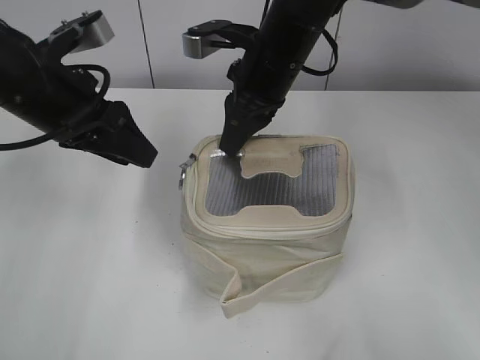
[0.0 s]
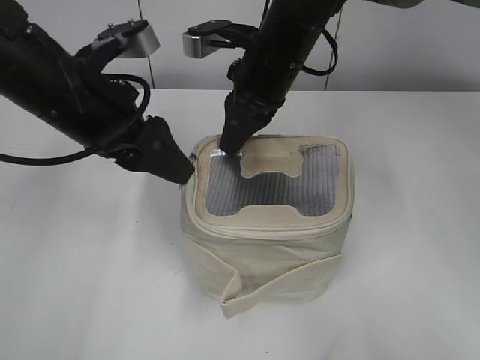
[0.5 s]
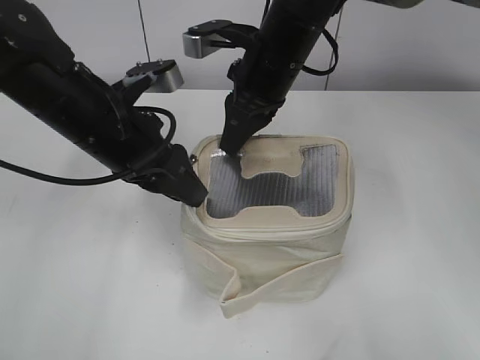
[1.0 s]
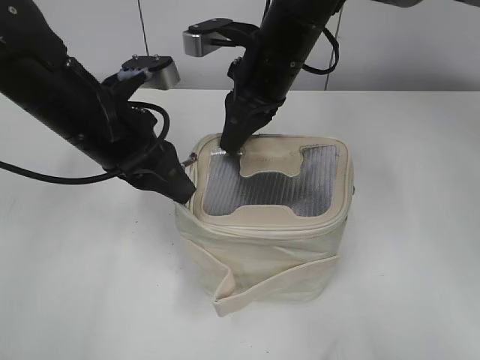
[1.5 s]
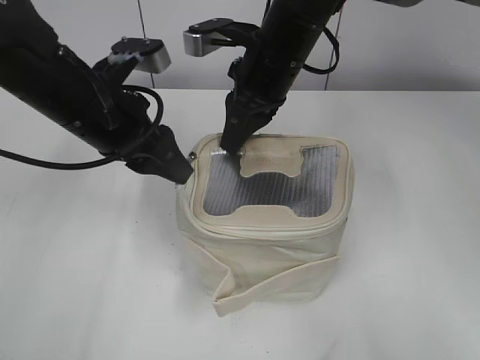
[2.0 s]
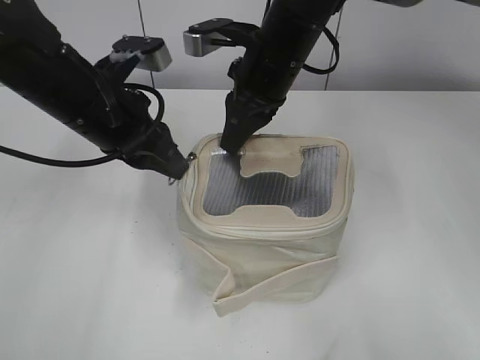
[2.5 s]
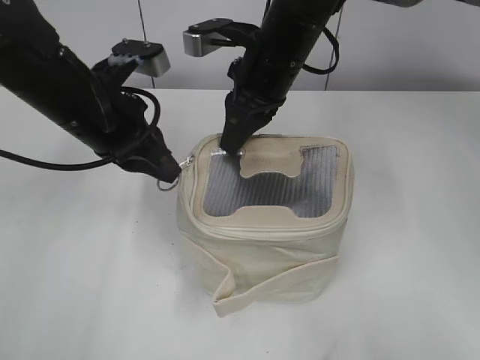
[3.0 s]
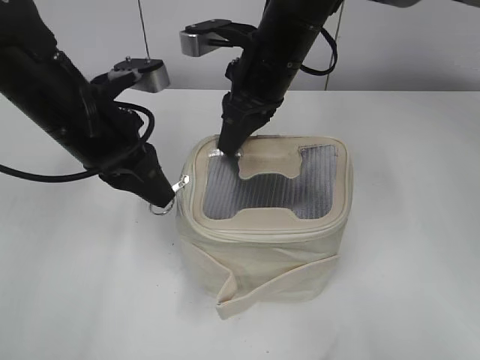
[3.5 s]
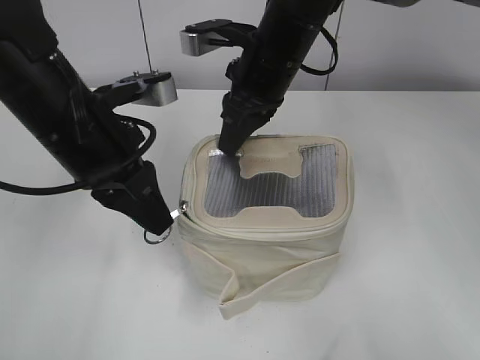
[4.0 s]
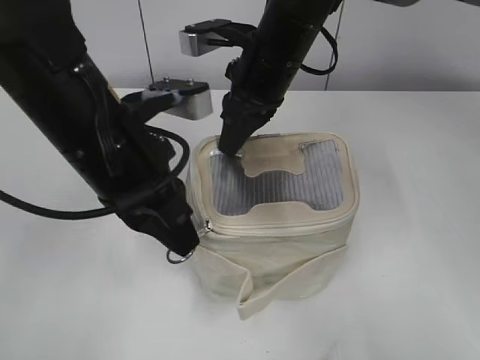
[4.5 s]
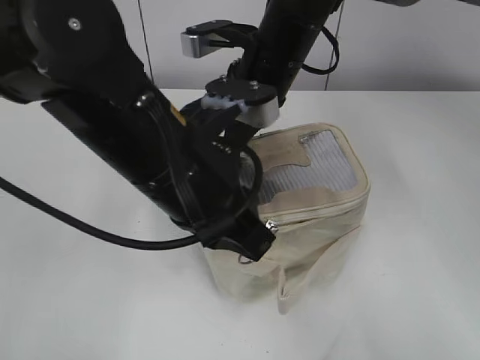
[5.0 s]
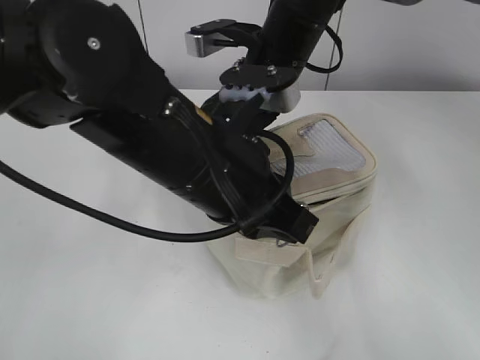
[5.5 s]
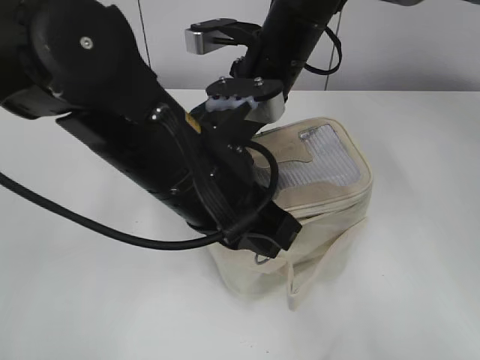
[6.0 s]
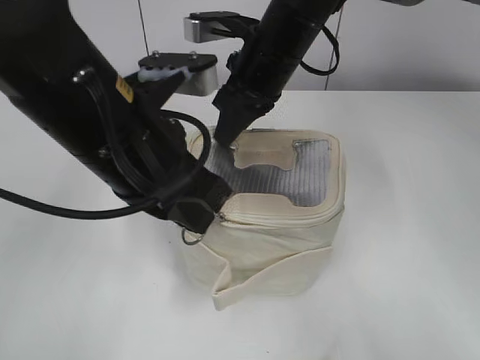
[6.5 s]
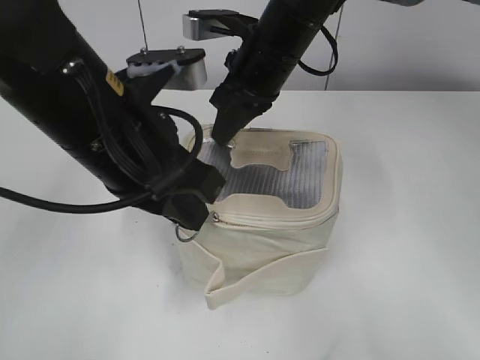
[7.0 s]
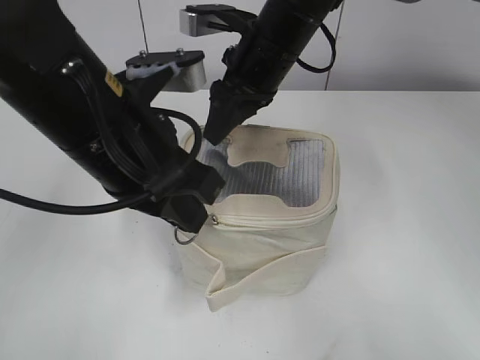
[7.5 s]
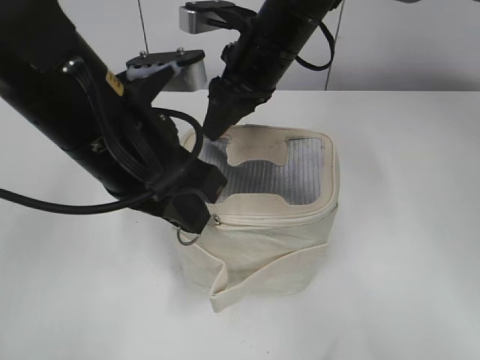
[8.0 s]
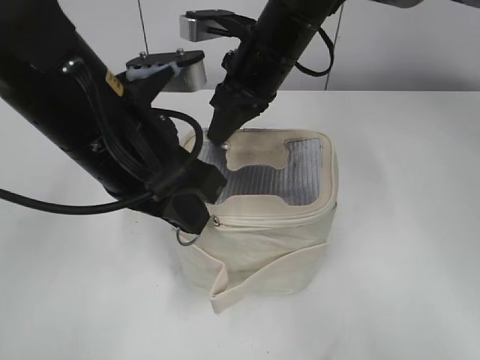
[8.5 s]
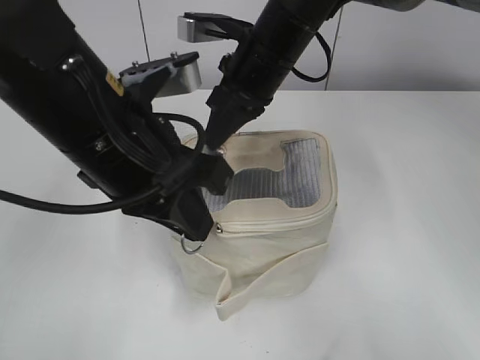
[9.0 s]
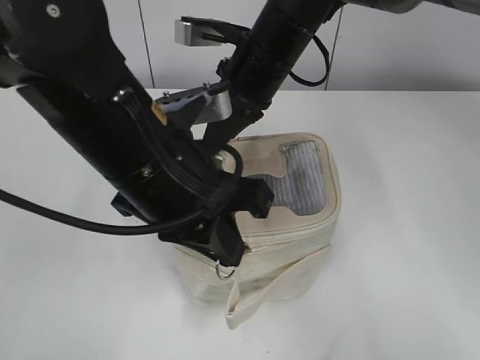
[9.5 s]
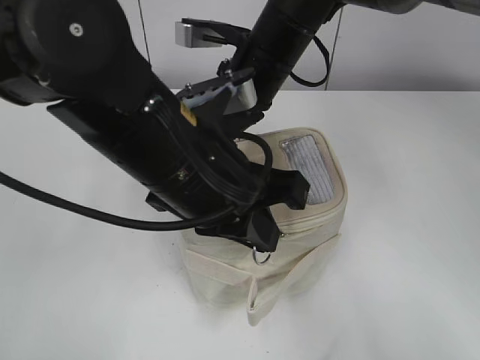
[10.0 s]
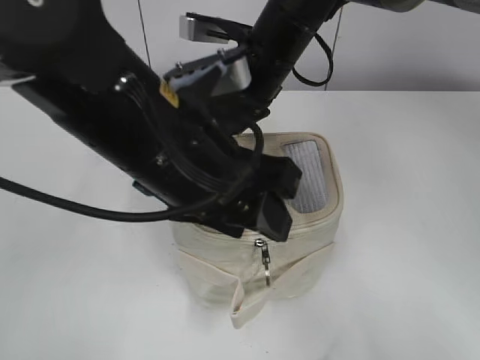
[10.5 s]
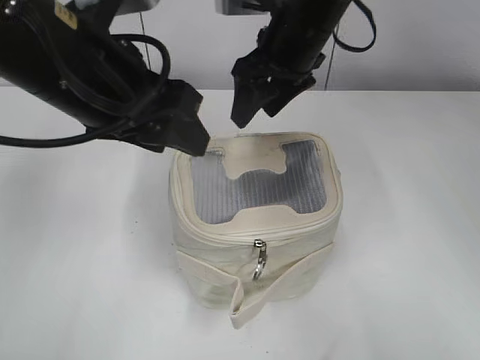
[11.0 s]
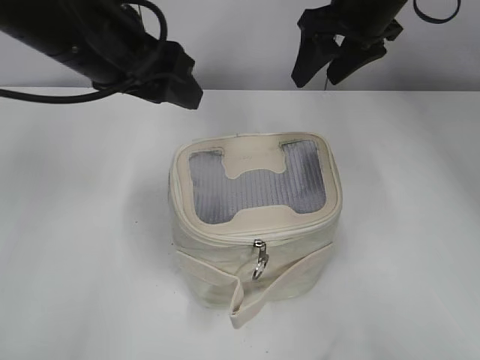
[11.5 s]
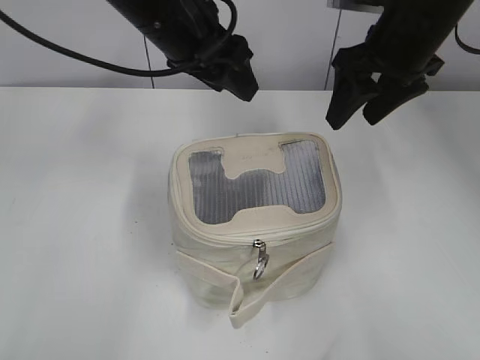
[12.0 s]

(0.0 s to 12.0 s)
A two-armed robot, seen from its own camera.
Step, 0.0 s - 10.0 s: Zip up the bag with your left hand.
2.0 s - 4.0 s: The left gripper closes up.
4.0 s - 6.0 s: The left gripper shifts some 10 cm to the right and backward.
6.0 s - 8.0 s: The left gripper moves to the left, roughly 5 cm, while the right gripper opens up.
8.0 s - 10.0 s: The left gripper ends up about 5 cm from where it was, while the right gripper closes its fingers.
10.0 s - 12.0 s: The right gripper heads to the right, covering approximately 15 cm, and opens up. Meanwhile the left gripper goes roughly 15 cm forward, and opens its fingers.

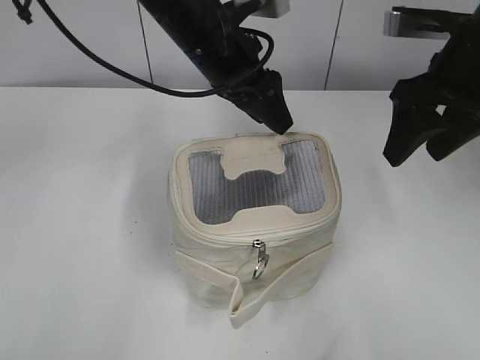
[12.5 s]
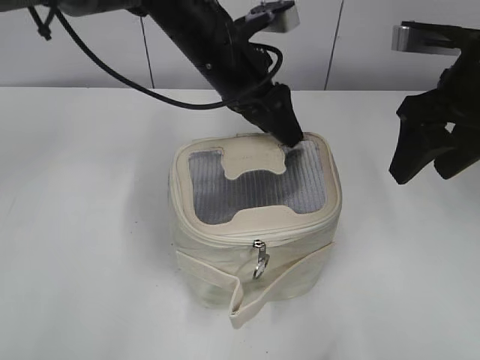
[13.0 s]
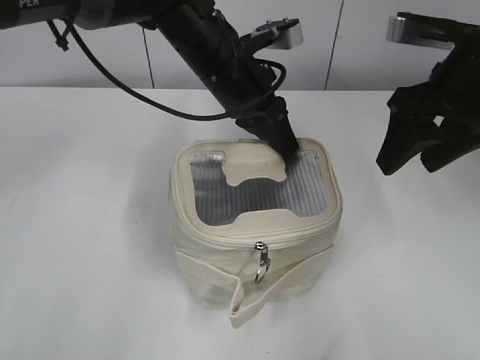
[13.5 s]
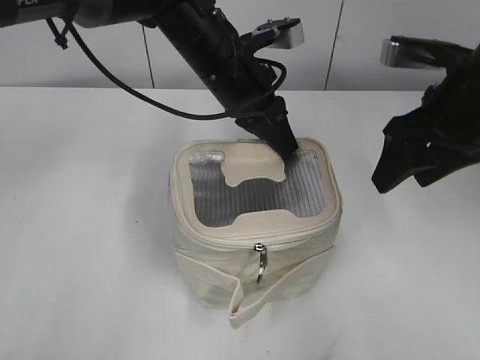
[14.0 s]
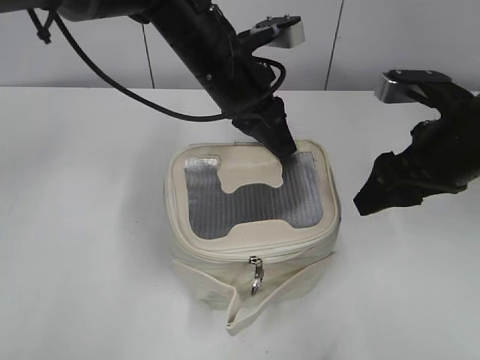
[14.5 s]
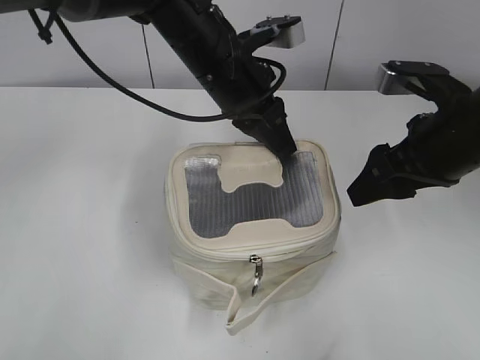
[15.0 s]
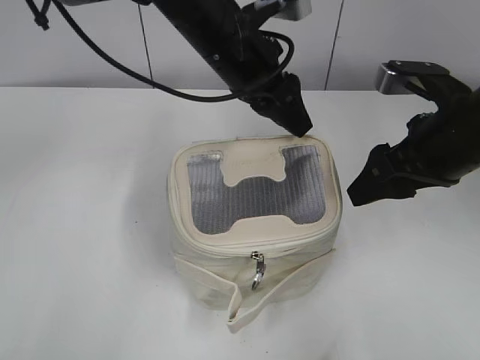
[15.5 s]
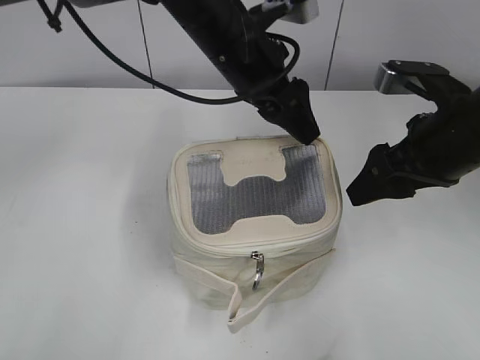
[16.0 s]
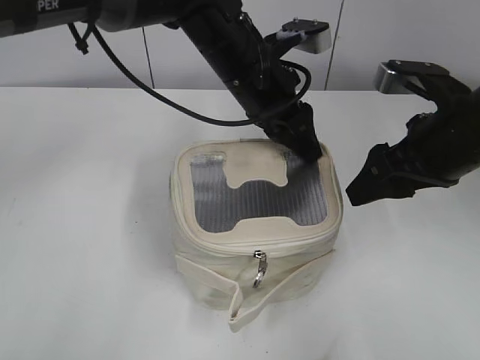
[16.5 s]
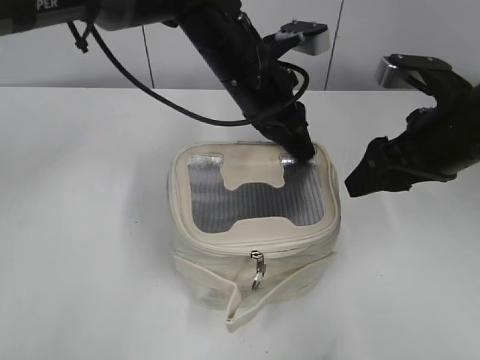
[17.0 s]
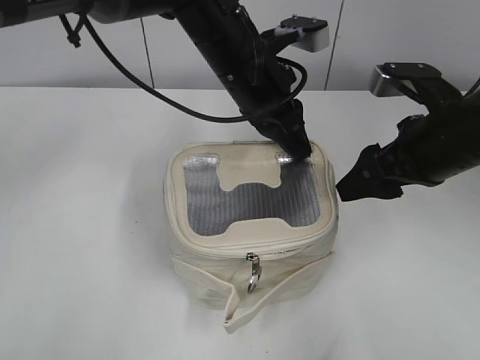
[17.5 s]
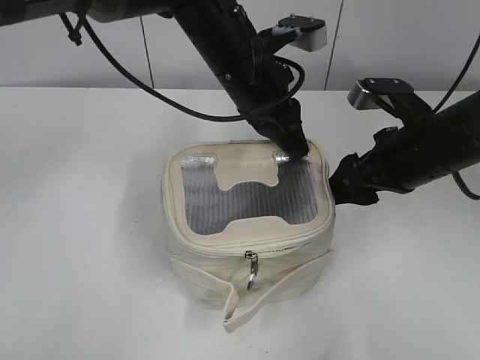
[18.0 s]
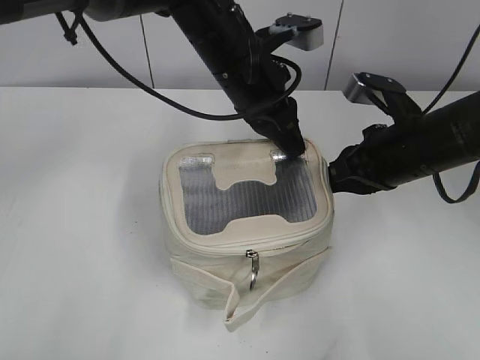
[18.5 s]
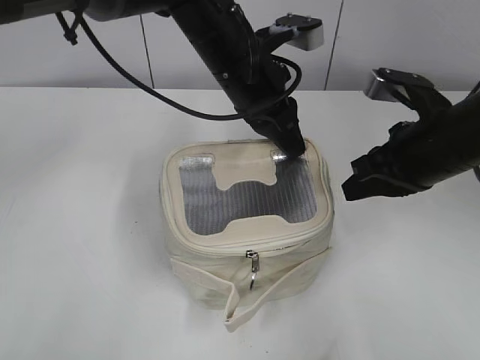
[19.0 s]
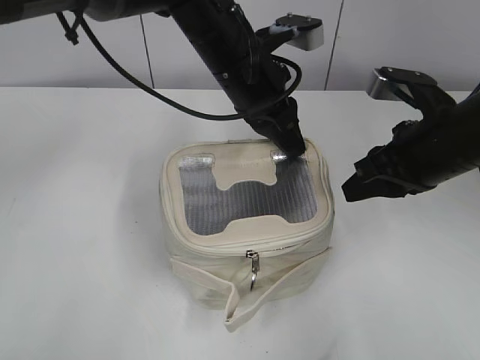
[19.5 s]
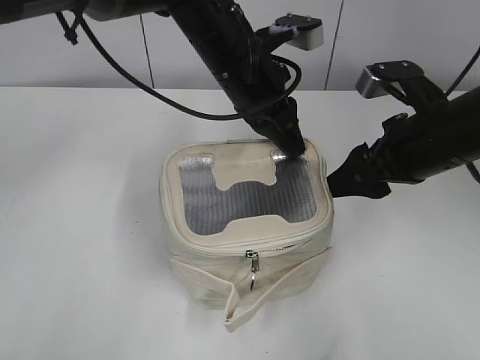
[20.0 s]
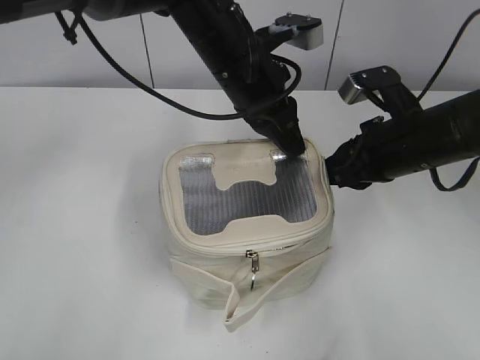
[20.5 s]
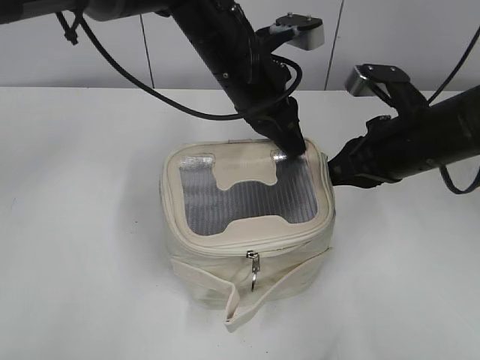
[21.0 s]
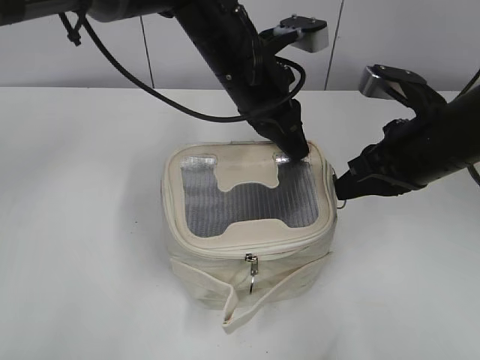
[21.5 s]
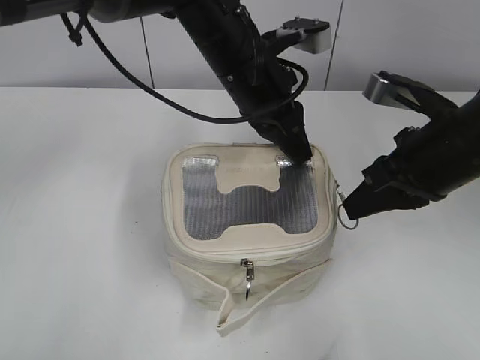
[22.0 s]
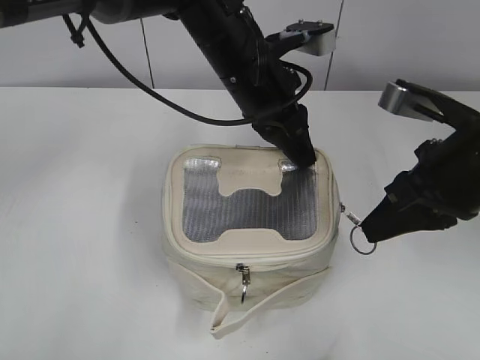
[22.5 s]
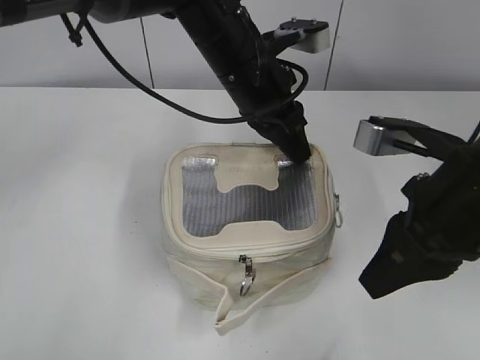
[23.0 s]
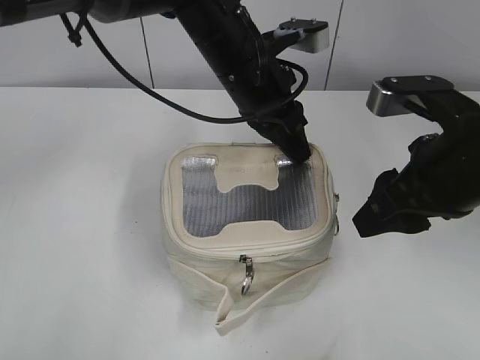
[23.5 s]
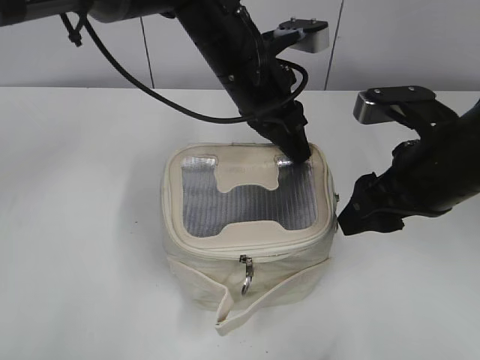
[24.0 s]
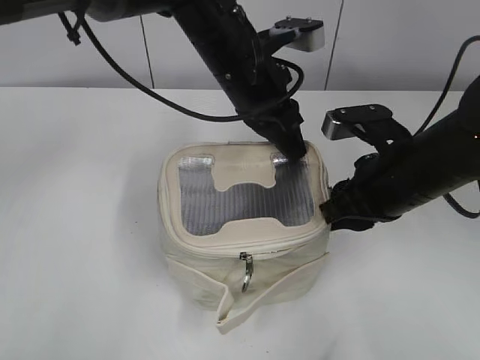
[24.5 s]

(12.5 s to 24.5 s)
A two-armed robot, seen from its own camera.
12.5 s - 14.5 s: The right gripper moves downward, roughly 5 cm; the left gripper closes.
14.5 s - 16.5 s: The left gripper opens.
16.5 s - 18.5 s: The left gripper closes its fingers, while the right gripper changes place by about 5 cm, and closes its fingers.
18.5 s - 20.5 s: The right gripper opens, then closes again.
20.5 s - 22.5 s: The right gripper heads backward and upward, covering approximately 10 cm.
22.5 s - 24.5 s: The right gripper moves downward, some 5 cm, and opens up.

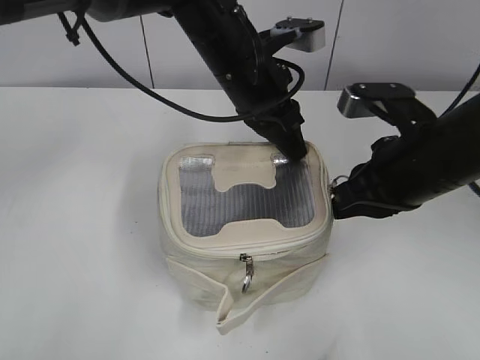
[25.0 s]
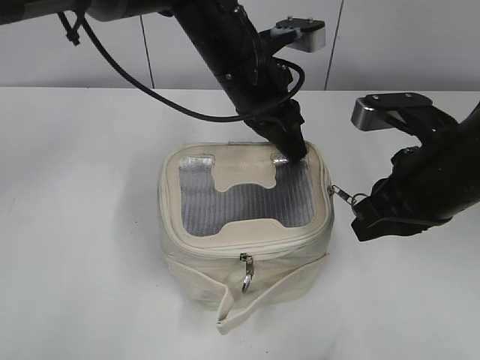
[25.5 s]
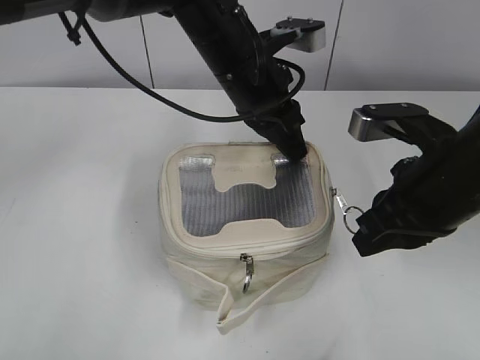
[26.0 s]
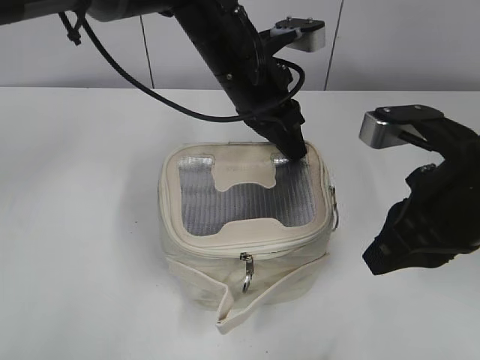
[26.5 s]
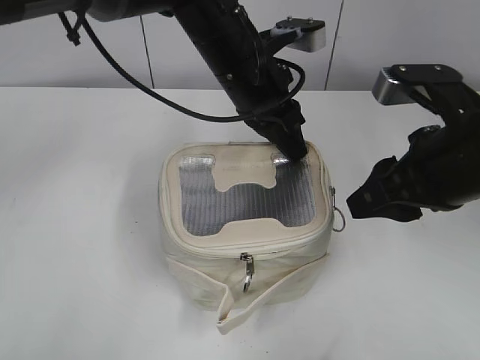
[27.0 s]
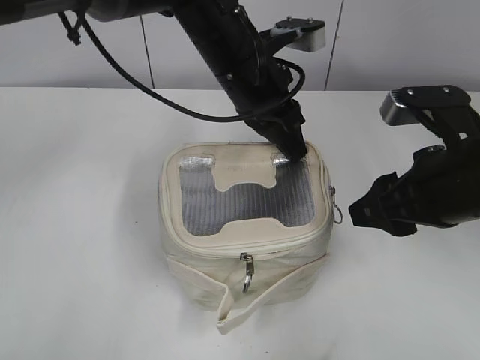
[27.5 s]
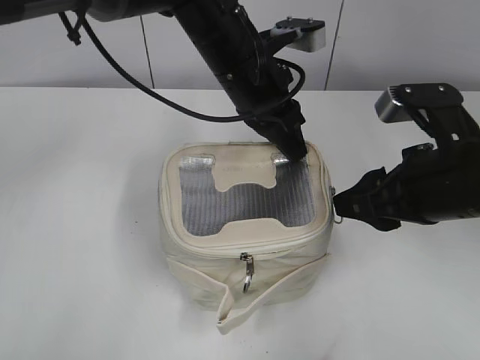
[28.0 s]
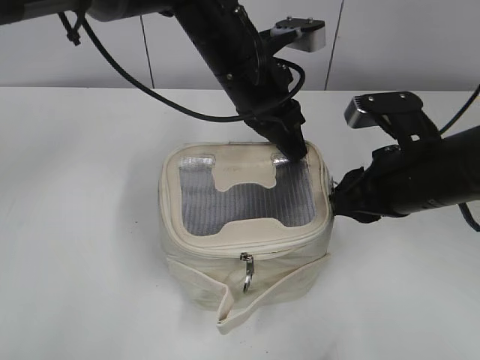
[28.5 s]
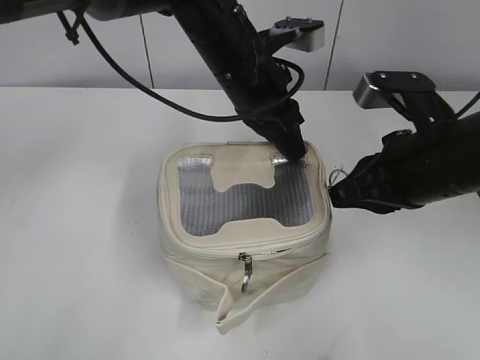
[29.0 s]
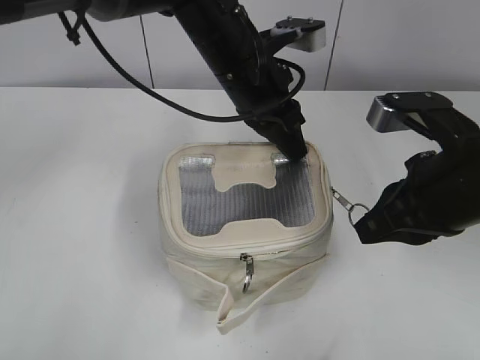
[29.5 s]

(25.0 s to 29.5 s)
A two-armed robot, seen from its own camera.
25.0 s - 27.0 s: The right gripper opens.
27.0 s - 29.5 s: The right gripper closes its fingers.
